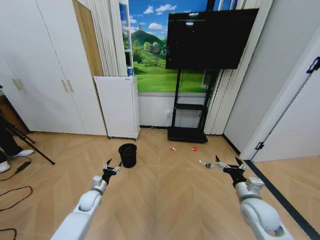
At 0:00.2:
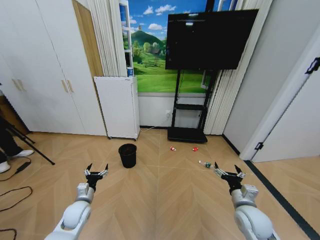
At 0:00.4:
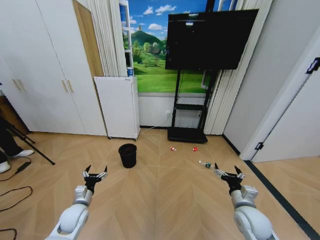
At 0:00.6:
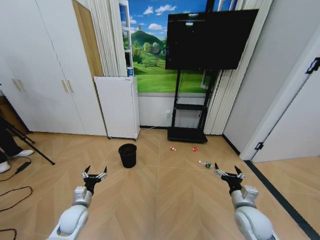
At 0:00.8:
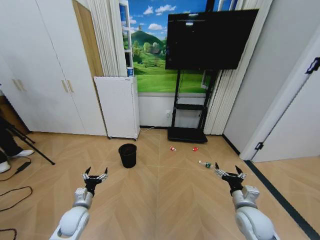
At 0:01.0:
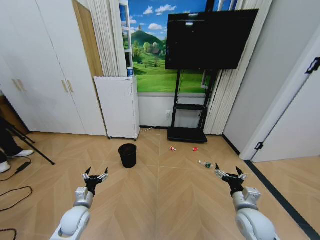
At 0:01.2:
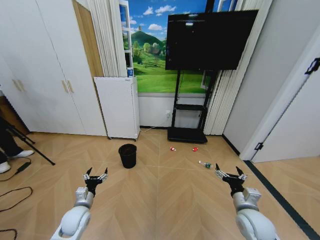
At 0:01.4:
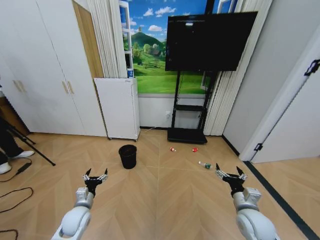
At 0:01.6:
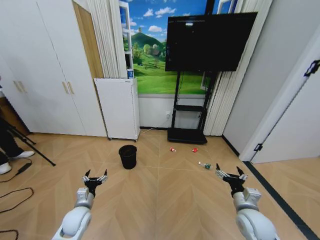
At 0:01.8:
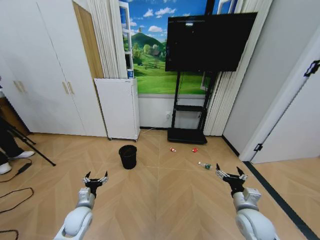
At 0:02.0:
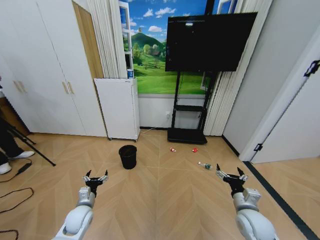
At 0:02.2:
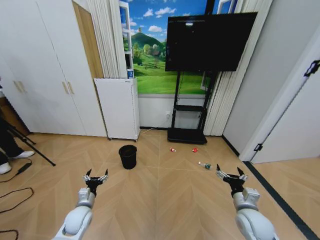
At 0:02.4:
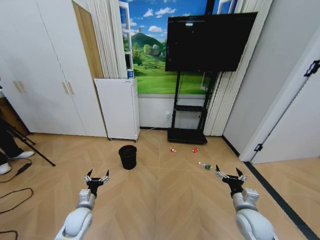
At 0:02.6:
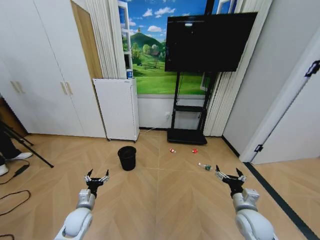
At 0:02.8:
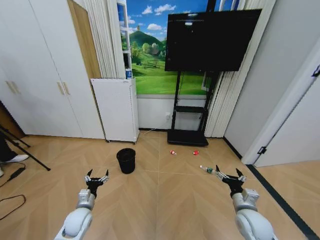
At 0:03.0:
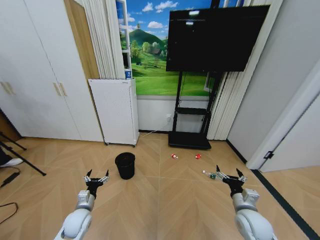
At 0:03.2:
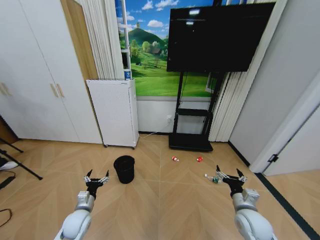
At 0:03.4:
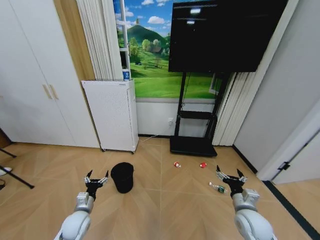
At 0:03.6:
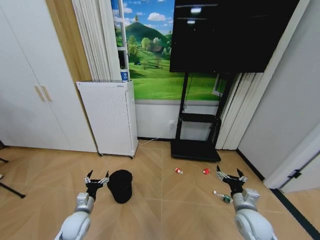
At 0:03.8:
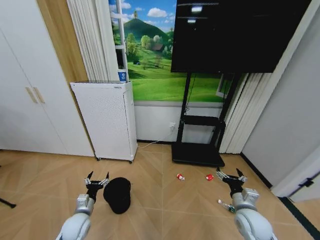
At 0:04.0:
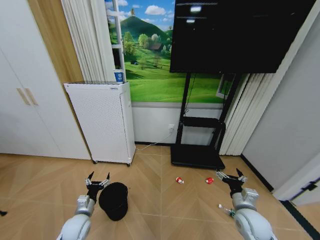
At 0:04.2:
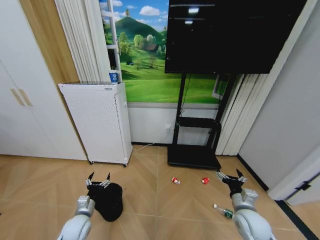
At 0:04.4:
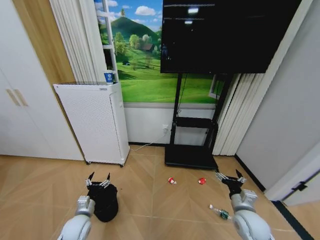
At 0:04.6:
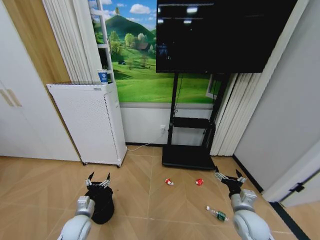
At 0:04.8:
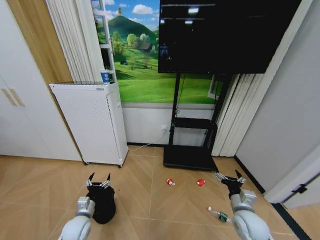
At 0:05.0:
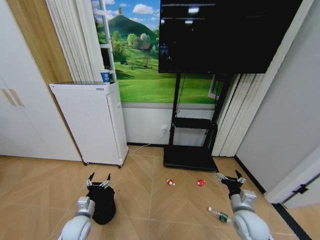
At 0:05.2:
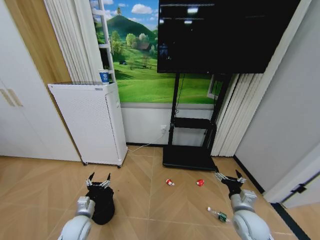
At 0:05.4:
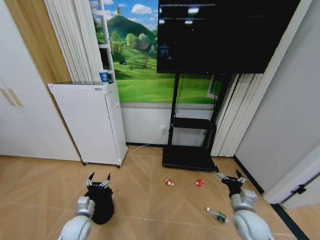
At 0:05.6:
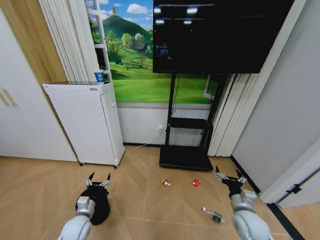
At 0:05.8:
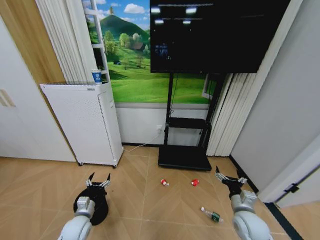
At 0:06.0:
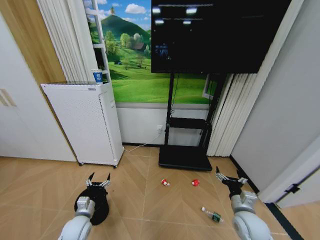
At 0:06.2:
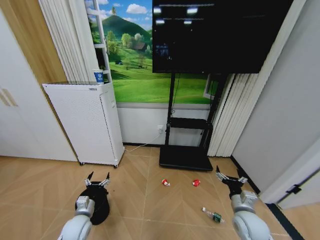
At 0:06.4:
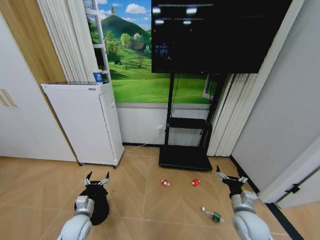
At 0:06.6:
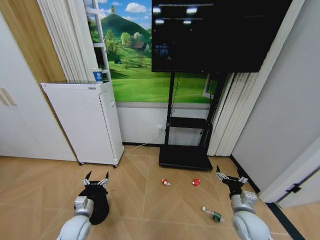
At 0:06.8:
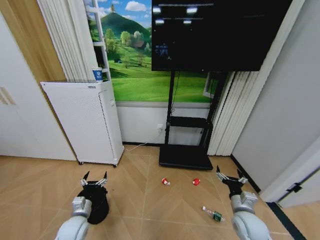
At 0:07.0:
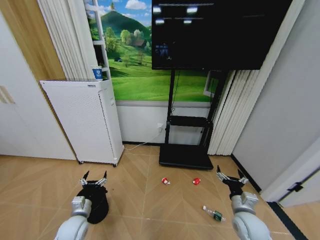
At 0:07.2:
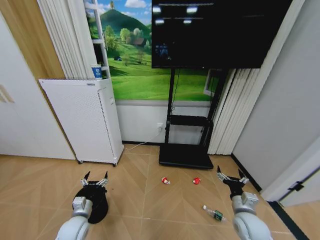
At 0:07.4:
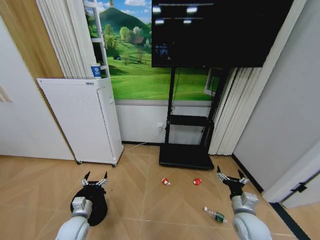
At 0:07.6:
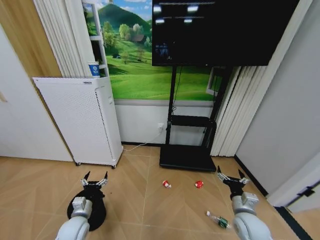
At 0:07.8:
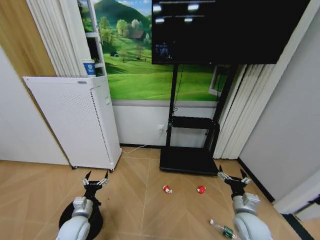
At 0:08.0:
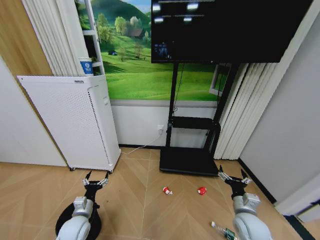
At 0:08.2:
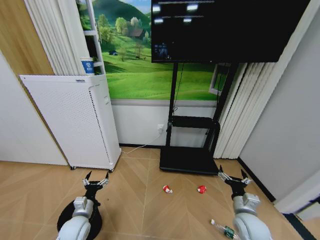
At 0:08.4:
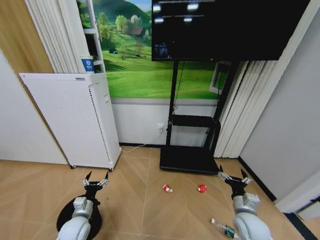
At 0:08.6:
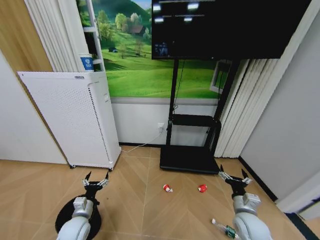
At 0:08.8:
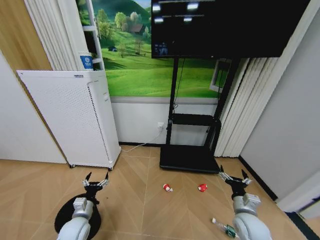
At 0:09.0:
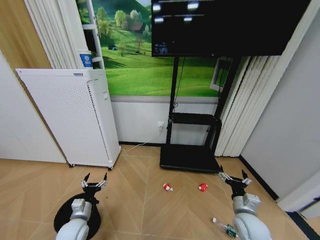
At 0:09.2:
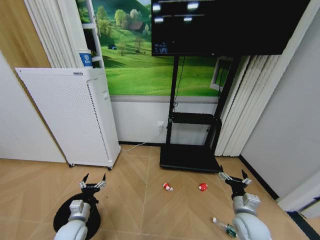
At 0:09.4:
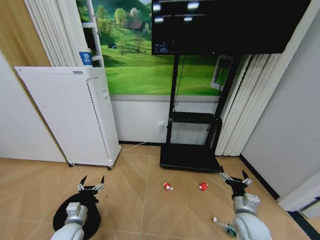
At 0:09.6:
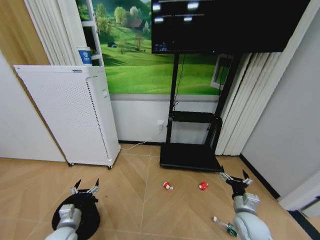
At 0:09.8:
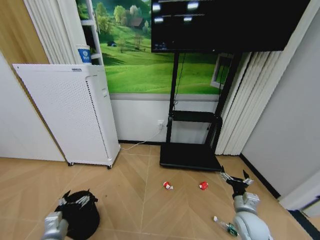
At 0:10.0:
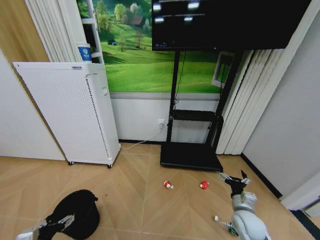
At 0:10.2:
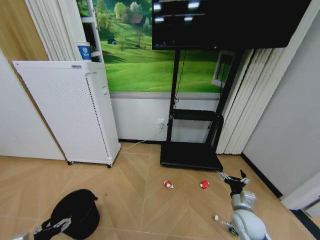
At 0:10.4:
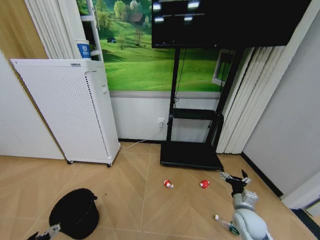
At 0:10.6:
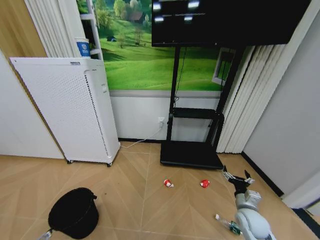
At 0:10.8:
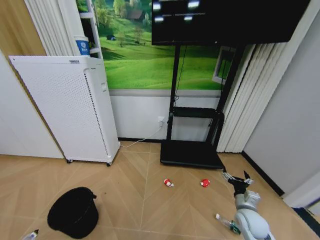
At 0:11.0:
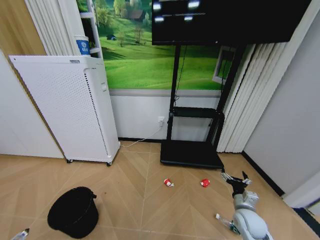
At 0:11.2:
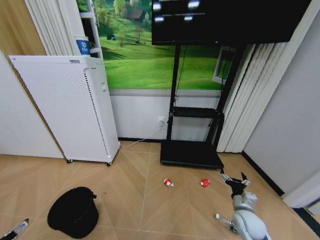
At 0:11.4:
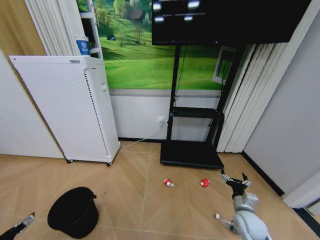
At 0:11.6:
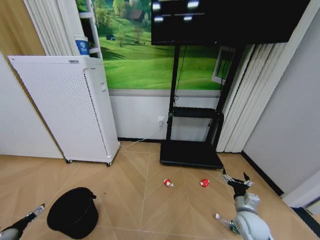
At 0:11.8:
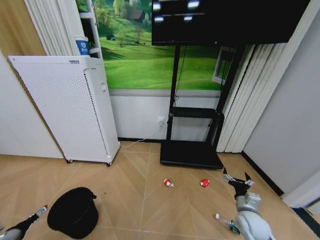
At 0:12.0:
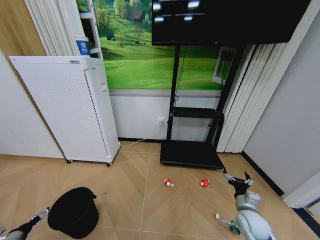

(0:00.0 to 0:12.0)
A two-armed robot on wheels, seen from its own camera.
Task of the whole recording: Pick up the trash bin and place the garbage on the floor into it.
0:09.0 - 0:10.4: The left gripper heads backward, to the left and upward, covering about 20 cm.
0:10.4 - 0:12.0: The left gripper is displaced to the left and forward by some 10 cm.

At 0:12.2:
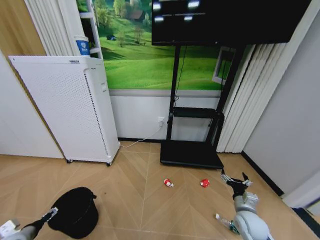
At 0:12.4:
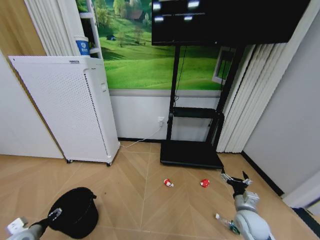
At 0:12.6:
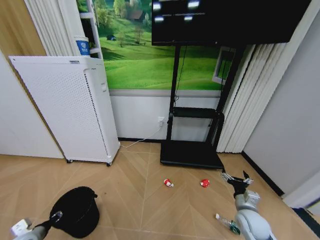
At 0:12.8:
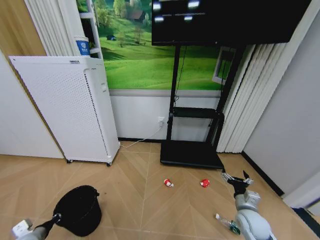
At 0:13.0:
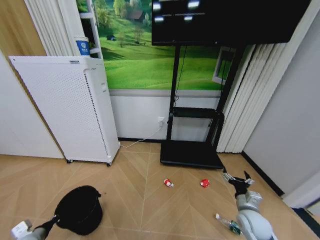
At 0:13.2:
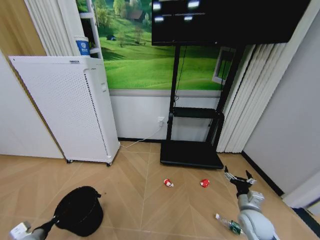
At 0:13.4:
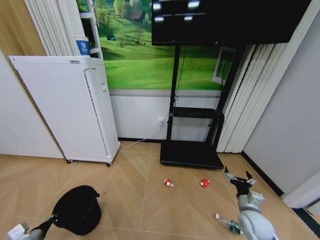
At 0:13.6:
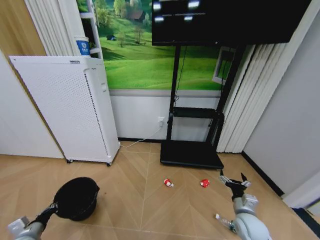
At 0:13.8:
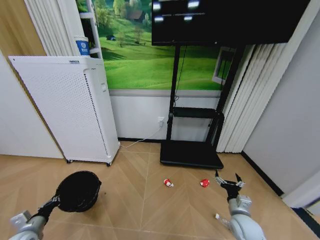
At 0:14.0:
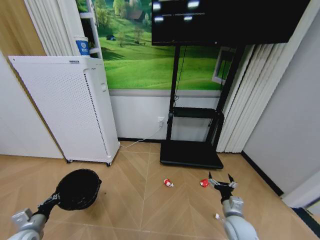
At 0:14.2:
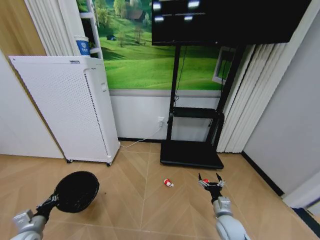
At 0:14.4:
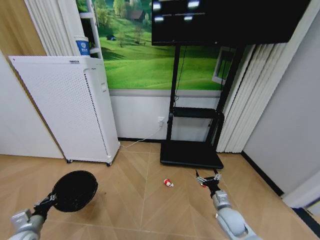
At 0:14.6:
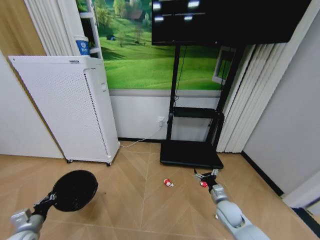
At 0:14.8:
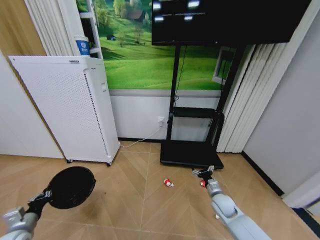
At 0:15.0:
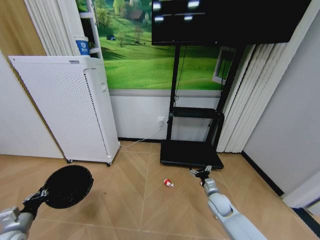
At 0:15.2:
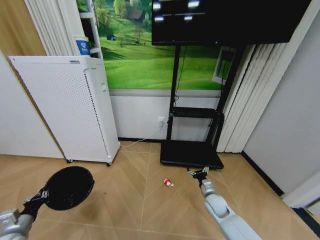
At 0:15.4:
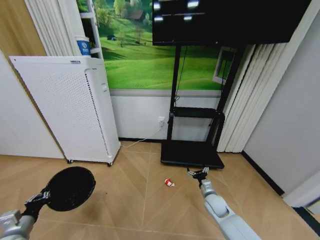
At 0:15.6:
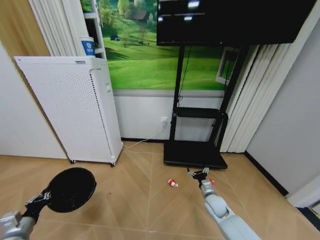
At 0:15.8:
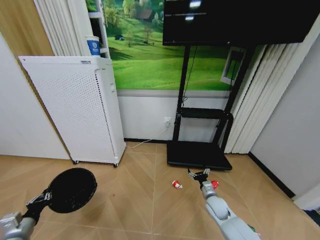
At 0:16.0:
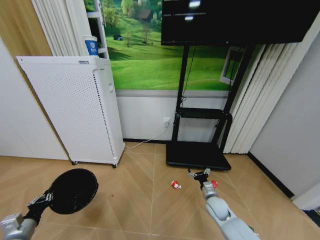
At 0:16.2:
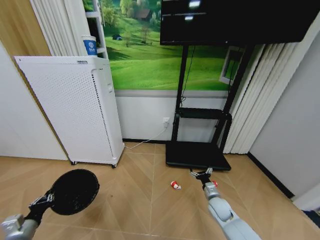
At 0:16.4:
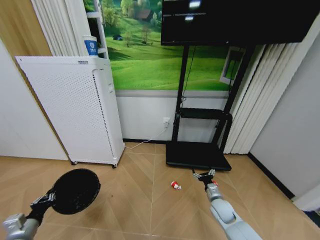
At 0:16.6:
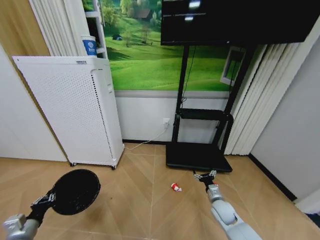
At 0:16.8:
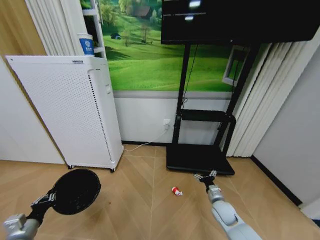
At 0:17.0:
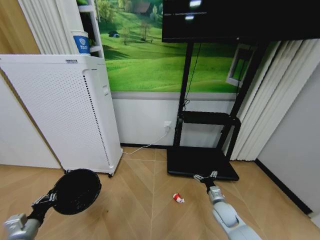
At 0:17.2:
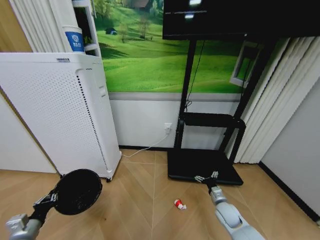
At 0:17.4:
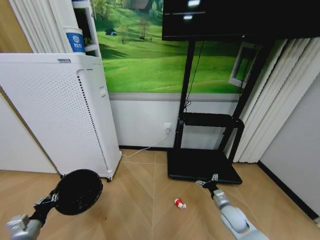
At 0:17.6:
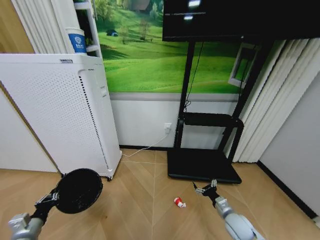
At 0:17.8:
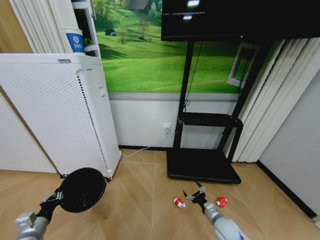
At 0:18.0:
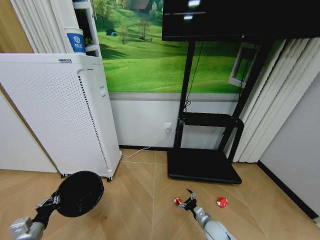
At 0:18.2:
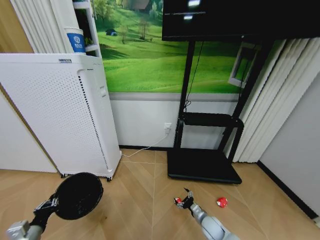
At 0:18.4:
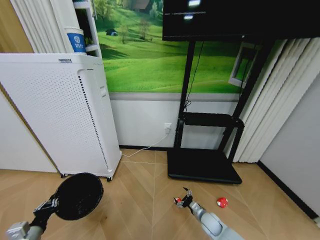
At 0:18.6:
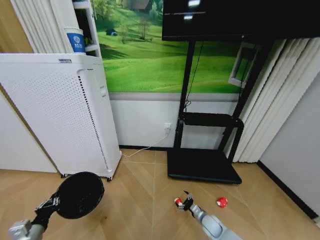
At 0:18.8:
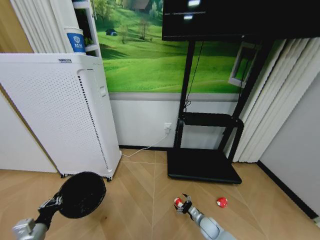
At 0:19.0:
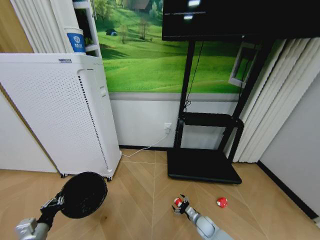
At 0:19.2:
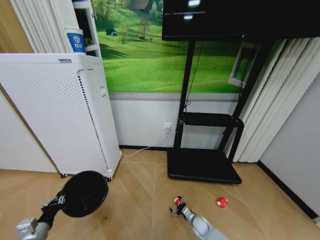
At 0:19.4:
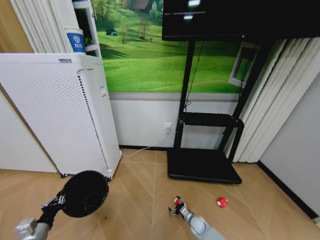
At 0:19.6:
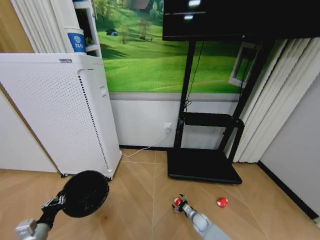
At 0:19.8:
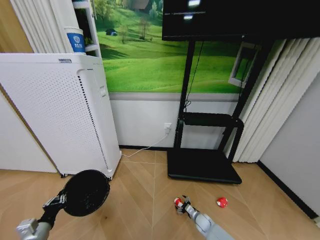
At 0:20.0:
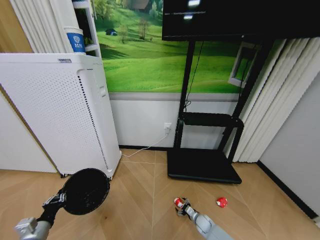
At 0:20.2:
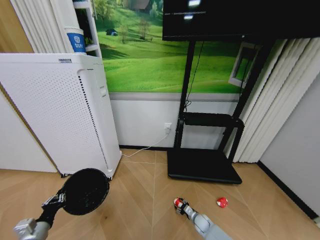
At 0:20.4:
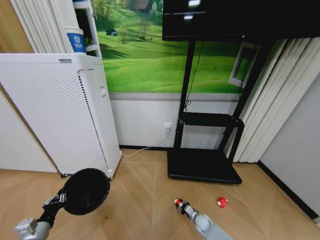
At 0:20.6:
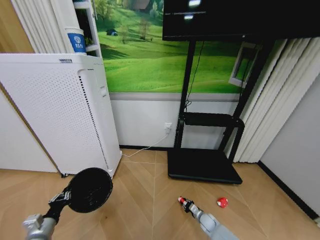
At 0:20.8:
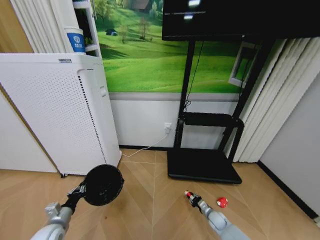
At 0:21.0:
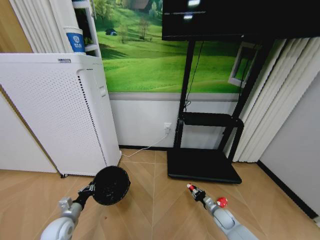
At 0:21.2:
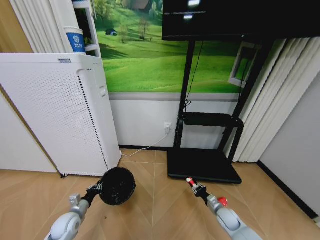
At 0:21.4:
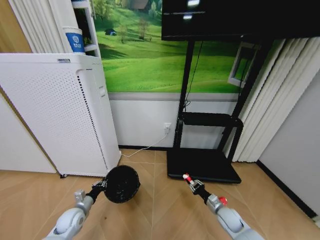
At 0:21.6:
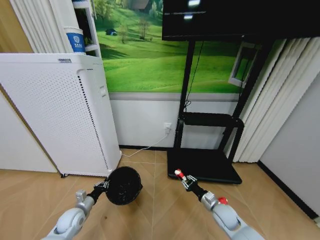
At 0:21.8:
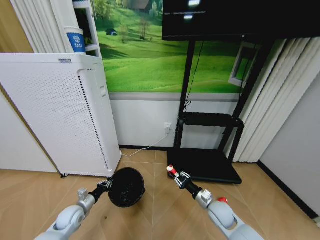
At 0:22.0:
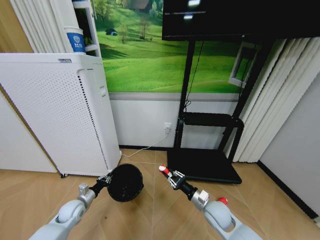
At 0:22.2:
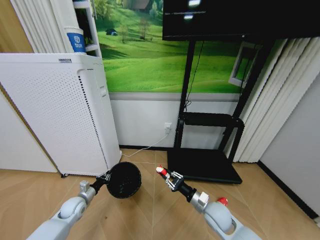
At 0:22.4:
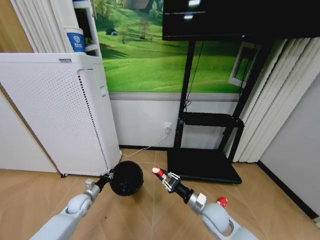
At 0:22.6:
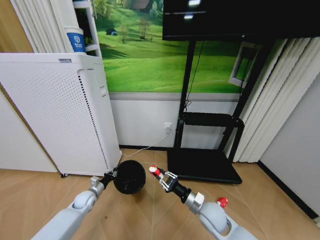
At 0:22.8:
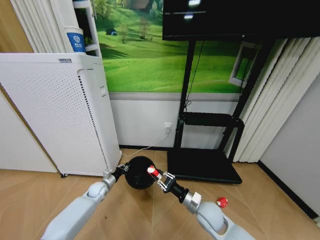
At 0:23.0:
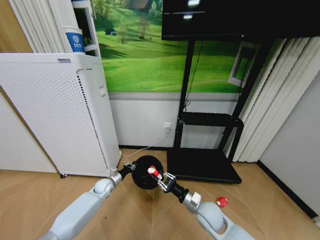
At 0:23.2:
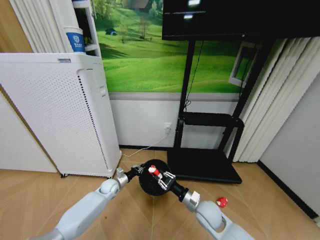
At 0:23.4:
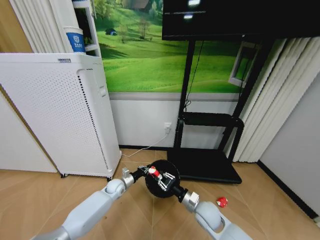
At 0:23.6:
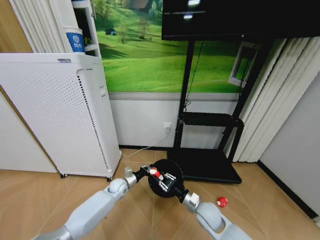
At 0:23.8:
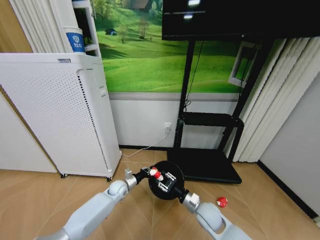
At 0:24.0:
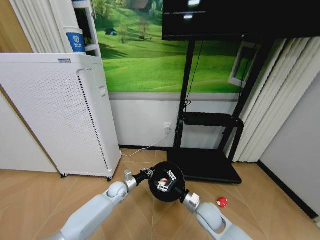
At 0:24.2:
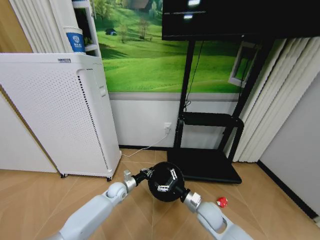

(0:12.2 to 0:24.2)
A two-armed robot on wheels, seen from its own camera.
Task of the whole recording: Pick up the trash bin and place the garbage on the floor into it.
0:12.2 - 0:13.8: The left gripper closes its fingers.
0:13.8 - 0:15.2: The right gripper goes about 10 cm forward and to the left.
0:16.6 - 0:18.2: The right gripper moves downward, some 10 cm.
0:18.2 - 0:19.8: The right gripper goes some 10 cm downward and forward.
0:19.8 - 0:21.2: The left gripper moves forward, downward and to the right, roughly 15 cm. Meanwhile the right gripper goes approximately 15 cm upward and to the right, and closes its fingers.
0:21.2 - 0:22.6: The right gripper shifts approximately 20 cm upward and to the left. The left gripper travels forward by about 10 cm.
0:22.6 - 0:24.2: The right gripper opens its fingers. The left gripper moves to the right, about 15 cm.
